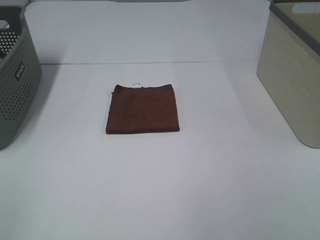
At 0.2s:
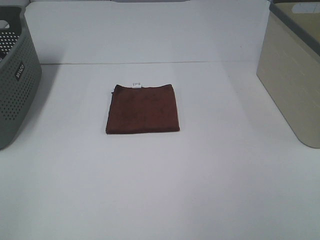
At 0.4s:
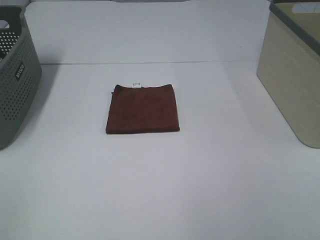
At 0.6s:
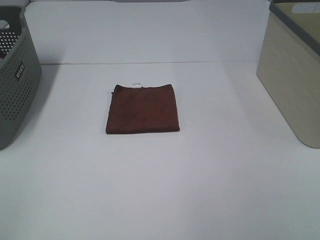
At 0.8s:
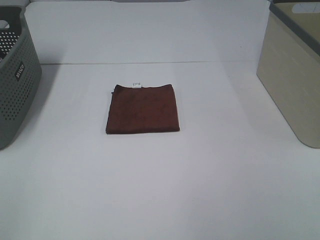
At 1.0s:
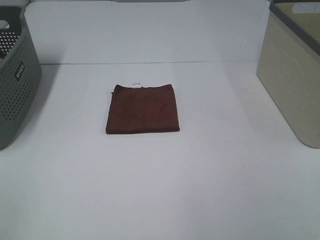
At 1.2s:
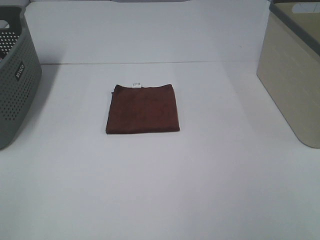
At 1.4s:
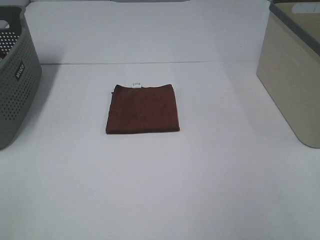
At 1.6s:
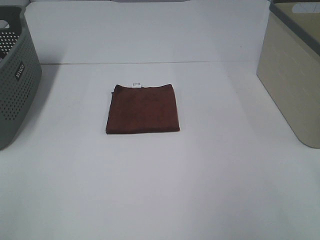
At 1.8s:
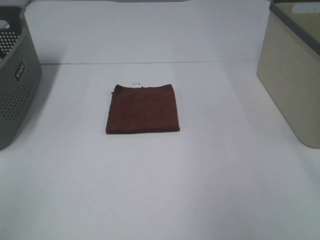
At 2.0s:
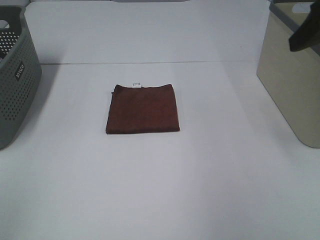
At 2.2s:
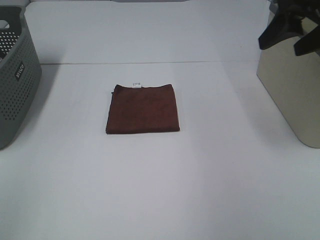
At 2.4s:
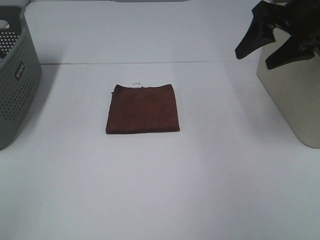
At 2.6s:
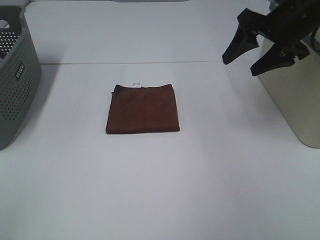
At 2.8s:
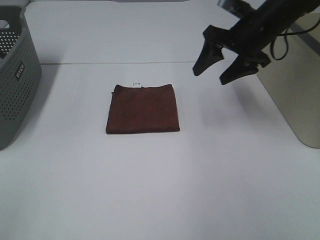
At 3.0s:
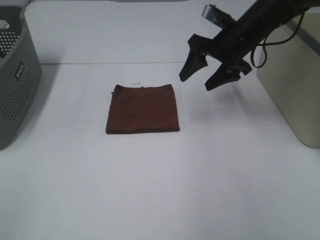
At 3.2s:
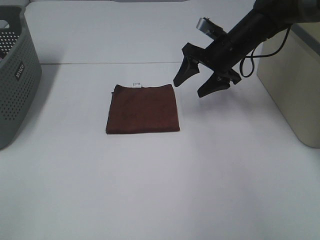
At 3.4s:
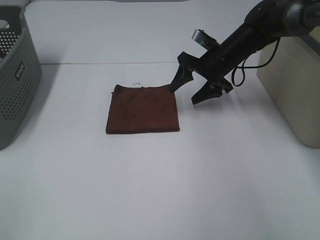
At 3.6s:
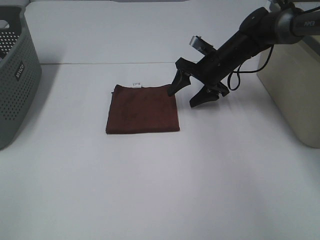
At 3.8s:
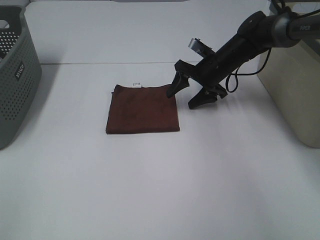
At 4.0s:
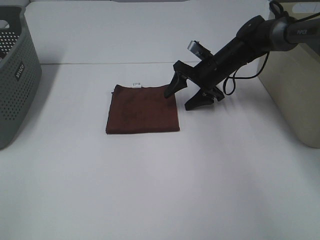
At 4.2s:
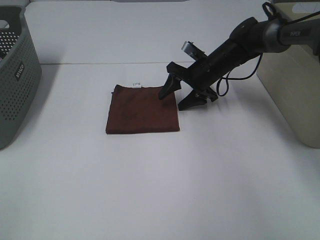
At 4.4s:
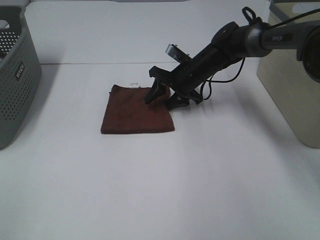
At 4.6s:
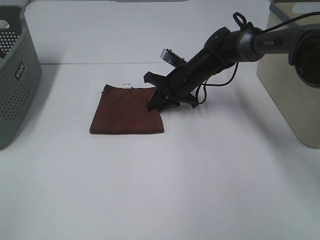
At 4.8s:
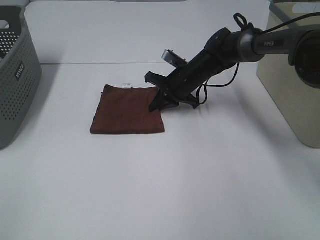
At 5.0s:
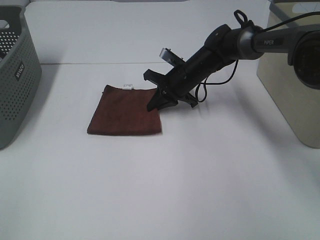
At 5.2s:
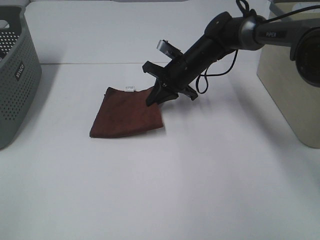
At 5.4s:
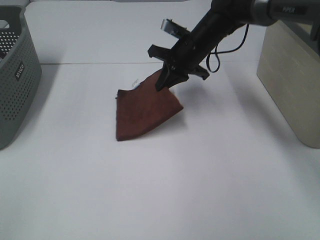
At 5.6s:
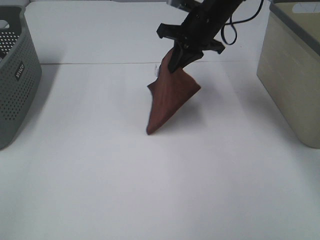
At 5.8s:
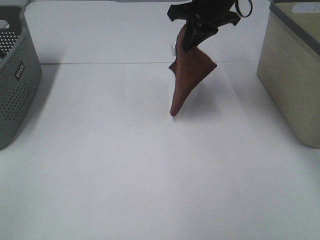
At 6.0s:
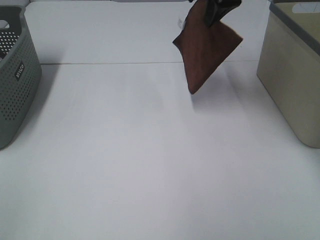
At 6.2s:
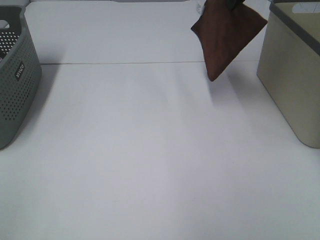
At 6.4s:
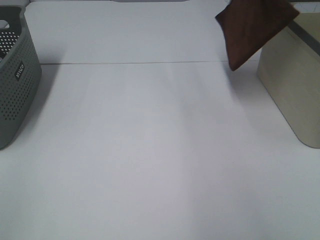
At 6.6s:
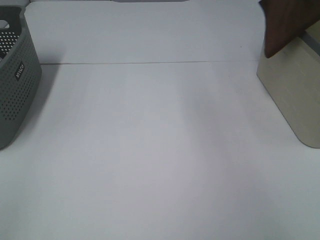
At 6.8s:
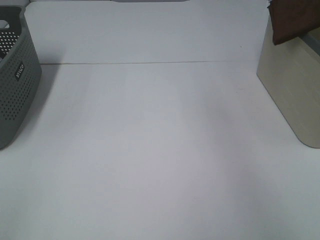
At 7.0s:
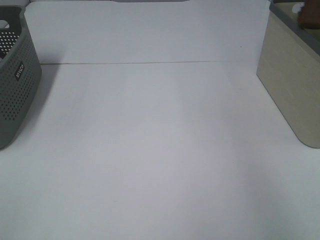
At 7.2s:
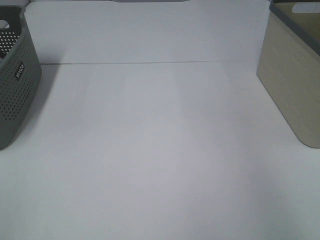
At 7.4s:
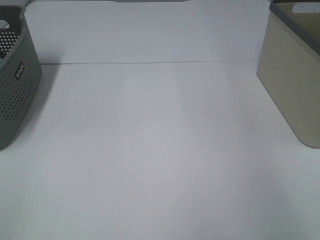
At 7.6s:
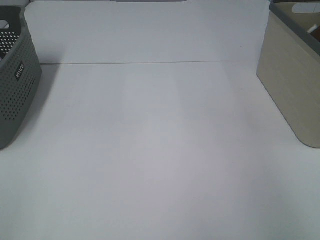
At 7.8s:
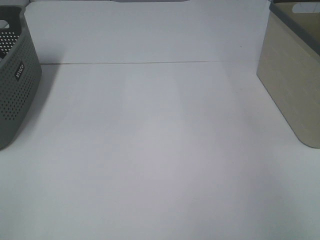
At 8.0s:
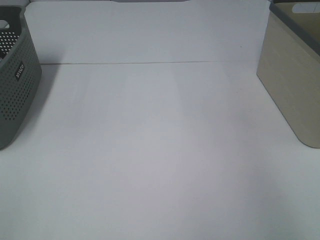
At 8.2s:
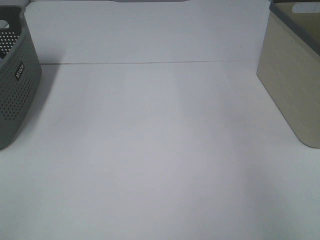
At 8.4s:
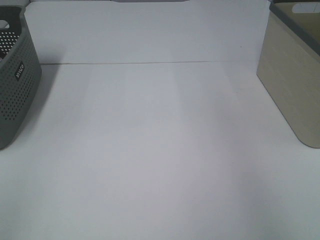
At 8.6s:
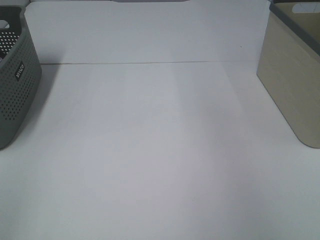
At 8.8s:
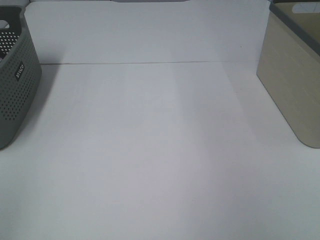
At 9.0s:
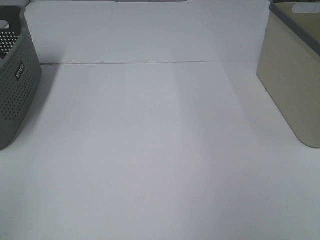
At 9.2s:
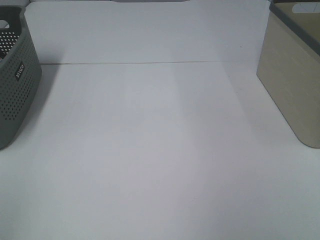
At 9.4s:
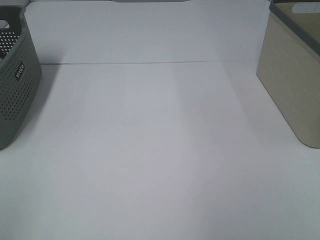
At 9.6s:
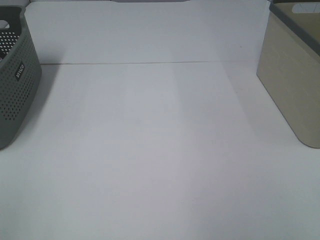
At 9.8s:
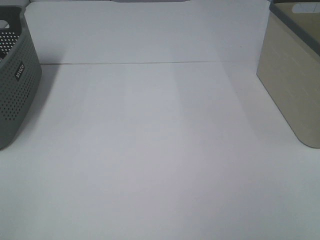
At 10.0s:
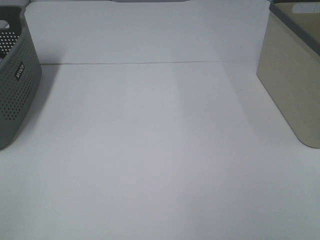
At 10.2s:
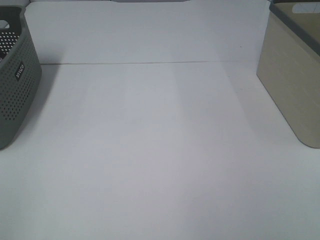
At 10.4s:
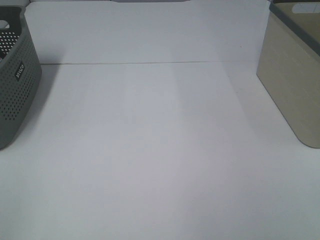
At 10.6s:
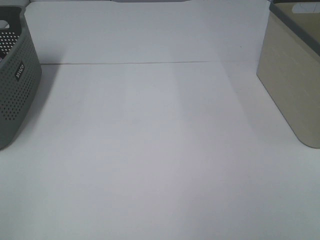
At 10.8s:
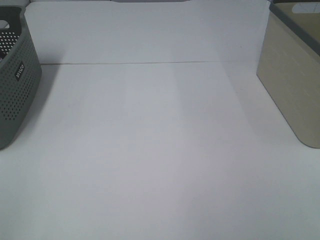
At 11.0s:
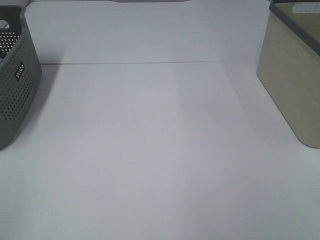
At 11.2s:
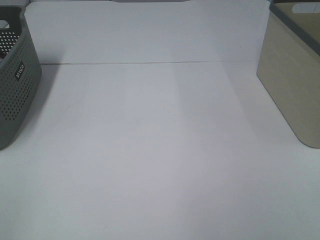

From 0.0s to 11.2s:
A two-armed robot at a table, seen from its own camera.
Step, from 0.0s to 4.8s: Right hand: grab the folded brown towel.
Step, from 5.0s to 7.8s: Right hand: place the brown towel in right basket.
From 1.6s to 3.2s: The right gripper goes roughly 40 cm forward, downward and to the left.
From 3.2s to 4.8s: The right gripper shifts some 10 cm downward and to the left, and closes up.
From 4.8s to 6.4s: The right gripper heads upward and to the right, covering some 30 cm.
From 6.4s to 8.0s: The right gripper moves to the right, some 20 cm, and opens up.

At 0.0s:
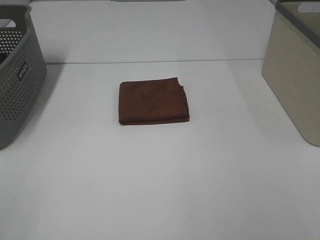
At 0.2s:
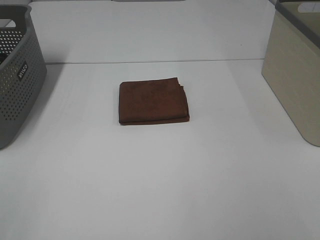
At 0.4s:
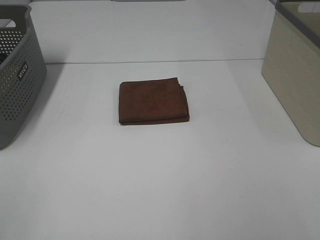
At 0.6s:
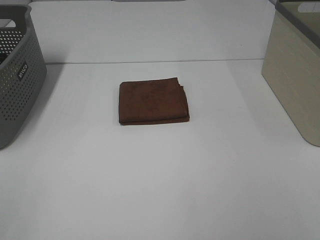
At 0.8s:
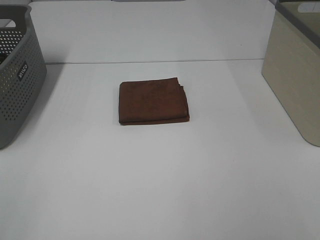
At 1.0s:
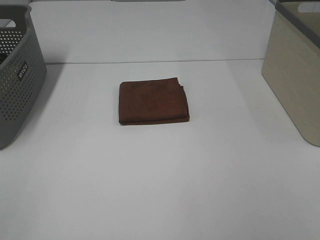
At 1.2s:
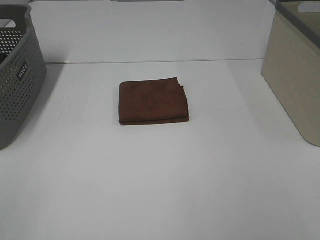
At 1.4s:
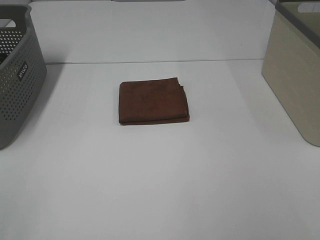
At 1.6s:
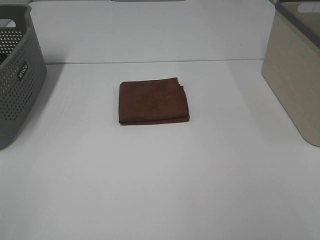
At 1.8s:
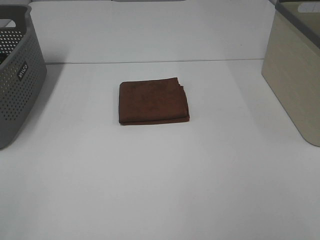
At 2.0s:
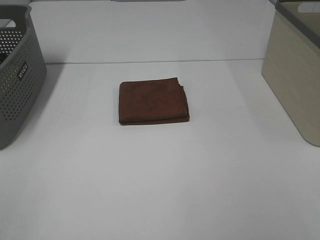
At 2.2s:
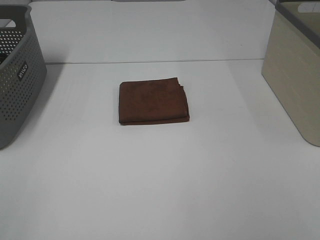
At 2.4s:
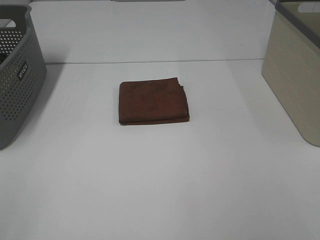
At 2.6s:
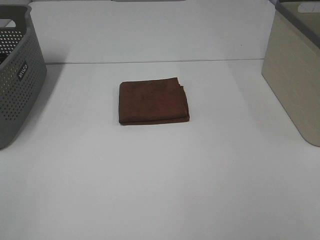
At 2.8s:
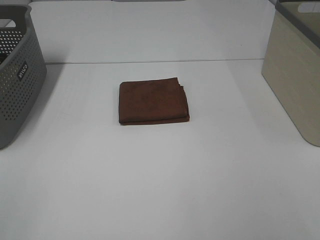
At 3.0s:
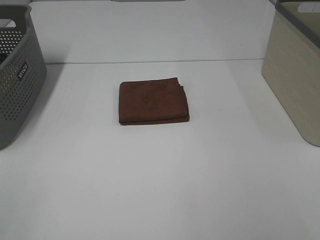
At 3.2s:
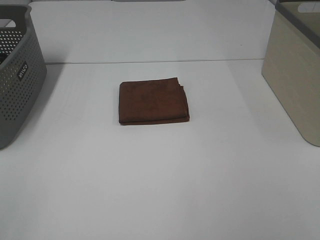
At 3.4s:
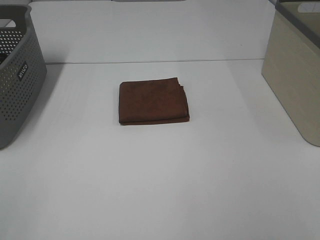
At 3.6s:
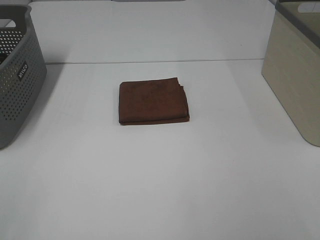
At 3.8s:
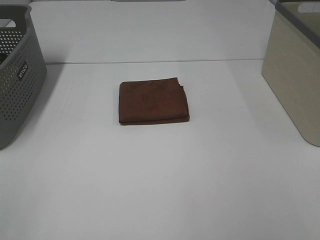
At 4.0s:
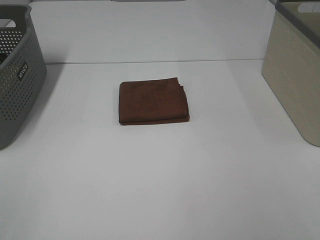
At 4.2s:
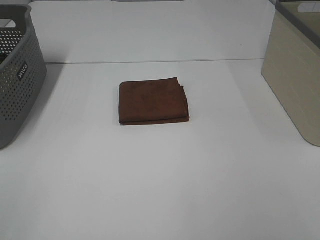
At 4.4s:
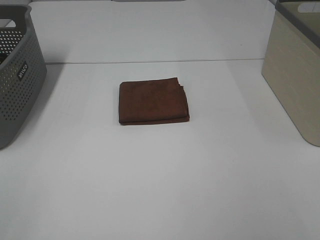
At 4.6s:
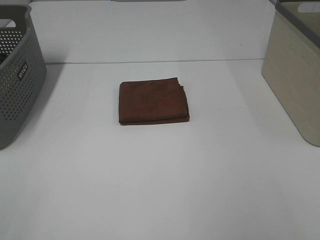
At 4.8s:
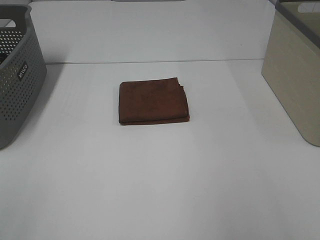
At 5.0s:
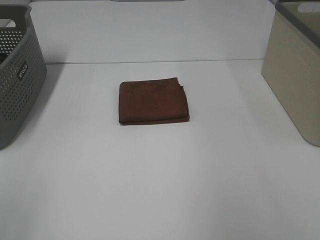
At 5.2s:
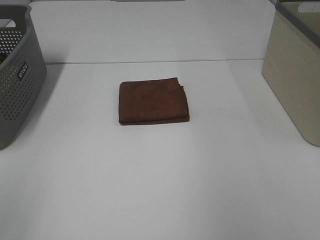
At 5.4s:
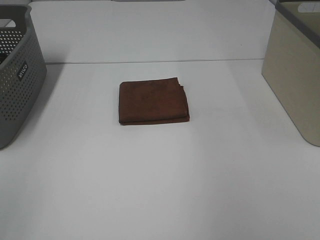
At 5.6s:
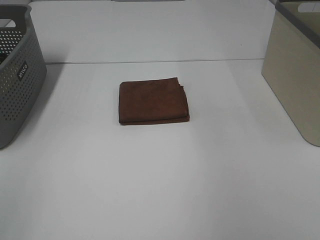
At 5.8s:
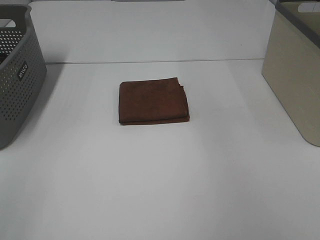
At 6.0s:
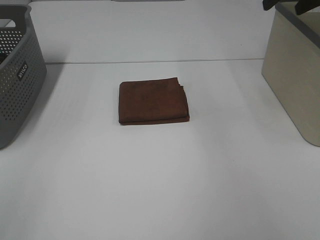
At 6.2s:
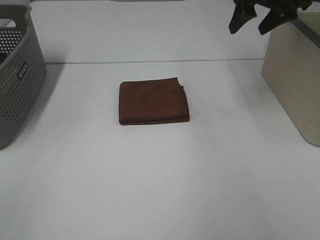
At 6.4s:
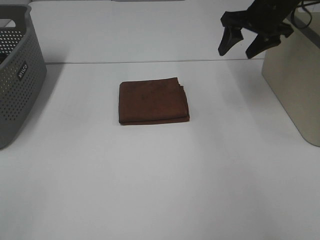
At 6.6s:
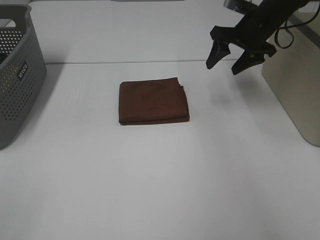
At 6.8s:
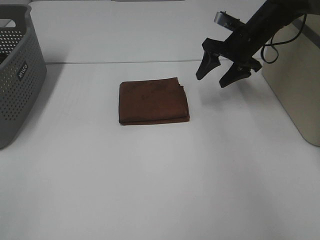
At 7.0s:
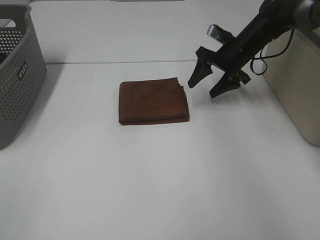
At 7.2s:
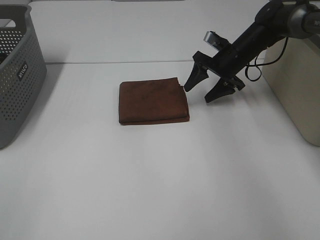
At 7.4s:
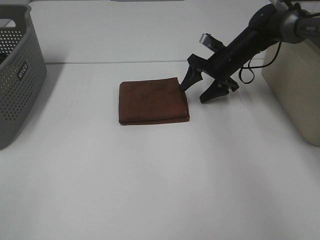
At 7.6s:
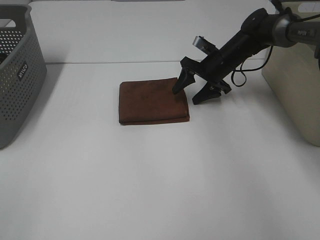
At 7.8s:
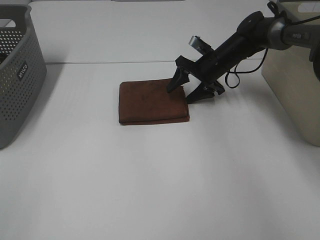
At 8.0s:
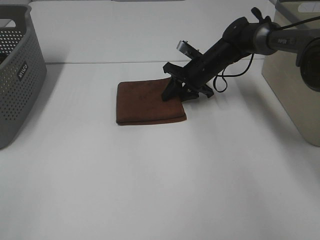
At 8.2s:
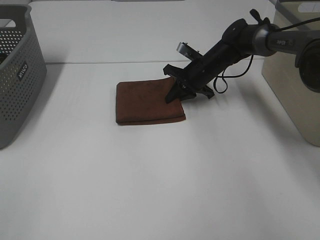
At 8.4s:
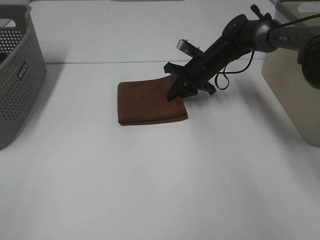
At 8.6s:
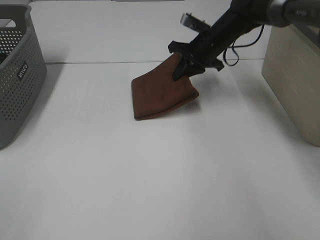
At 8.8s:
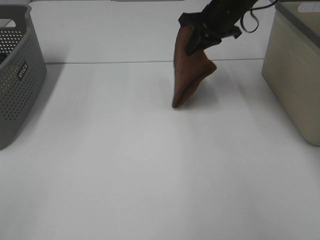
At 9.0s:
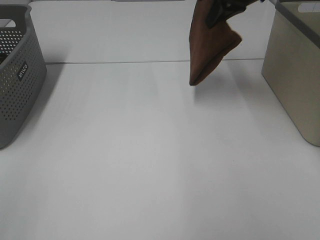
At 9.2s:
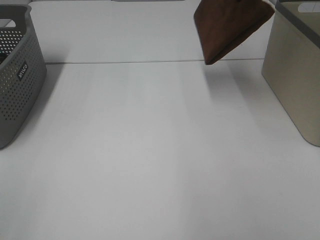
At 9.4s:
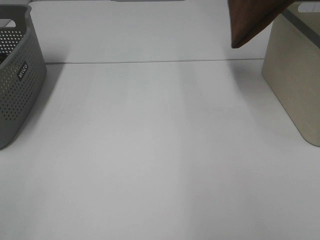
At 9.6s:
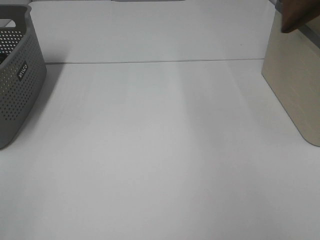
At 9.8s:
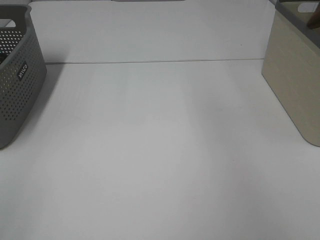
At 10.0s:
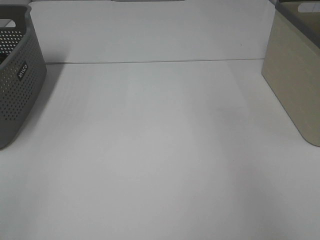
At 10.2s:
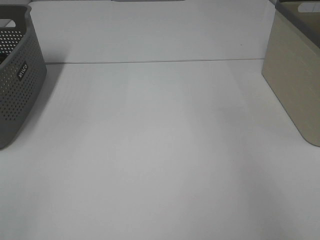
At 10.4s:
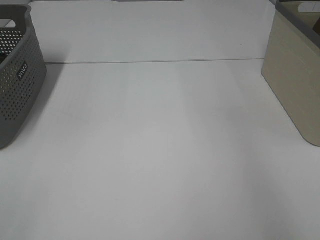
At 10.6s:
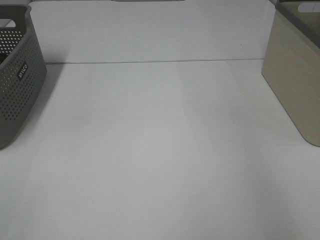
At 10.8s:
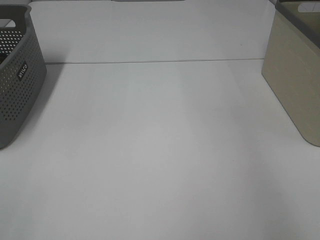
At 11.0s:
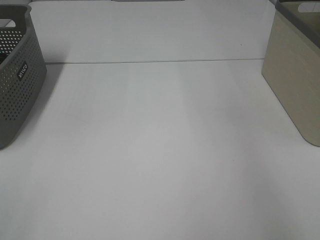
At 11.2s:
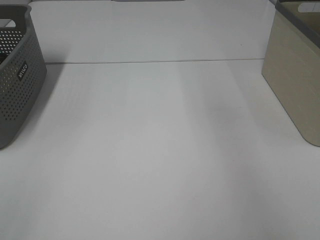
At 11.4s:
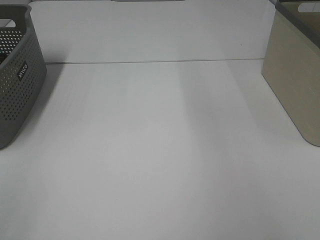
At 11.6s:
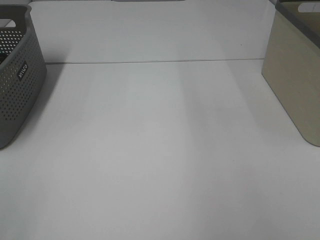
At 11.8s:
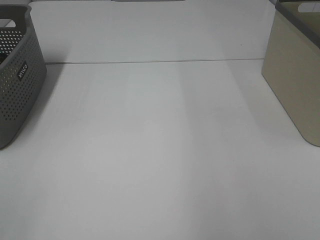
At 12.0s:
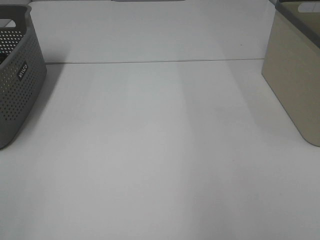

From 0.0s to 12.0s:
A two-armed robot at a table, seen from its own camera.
Step, from 0.0s to 8.4s: Right hand: grab the folded brown towel.
Step, from 8.6s to 10.8s: Right hand: place the brown towel in right basket.
From 0.0s to 4.4s: Neither gripper changes place.
From 6.0s to 7.6s: The right gripper heads downward and to the left, covering approximately 25 cm.
From 7.6s to 9.0s: The right gripper shifts about 20 cm upward, and closes its fingers.
From 9.0s to 10.4s: The right gripper is displaced to the right by approximately 25 cm.
